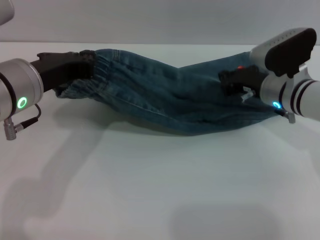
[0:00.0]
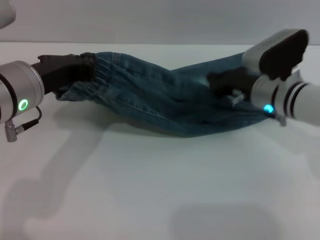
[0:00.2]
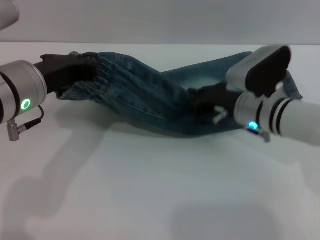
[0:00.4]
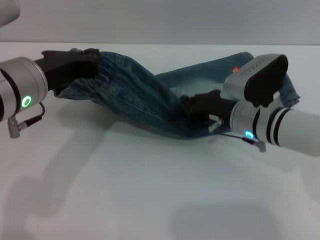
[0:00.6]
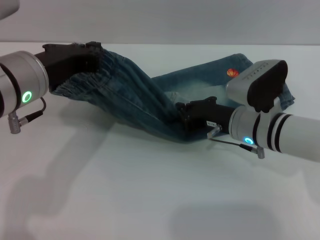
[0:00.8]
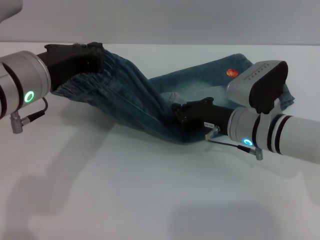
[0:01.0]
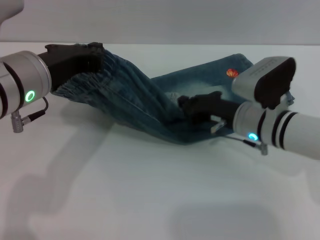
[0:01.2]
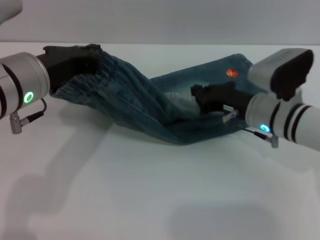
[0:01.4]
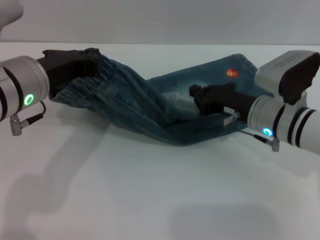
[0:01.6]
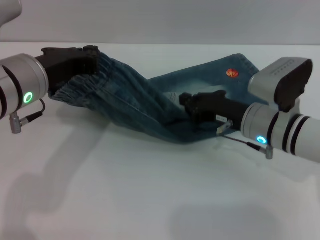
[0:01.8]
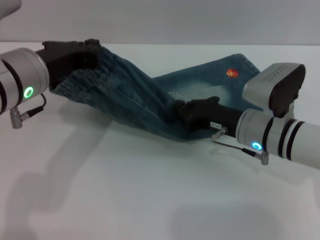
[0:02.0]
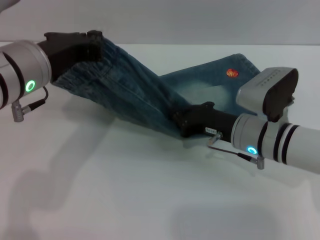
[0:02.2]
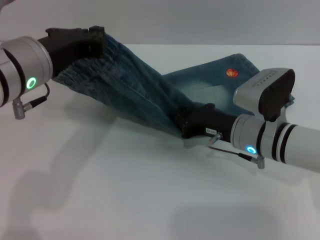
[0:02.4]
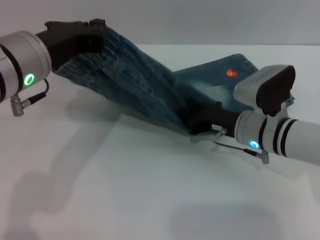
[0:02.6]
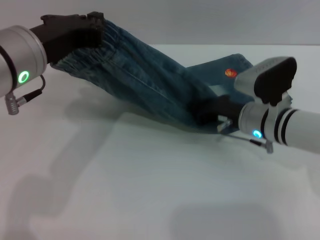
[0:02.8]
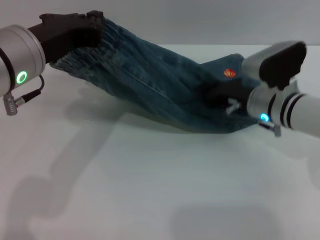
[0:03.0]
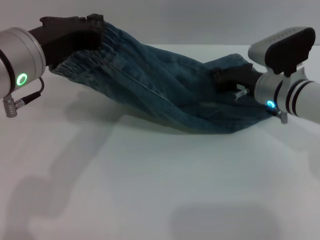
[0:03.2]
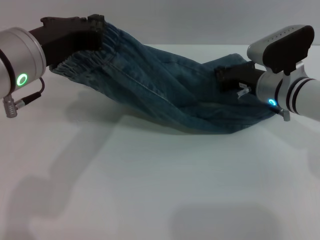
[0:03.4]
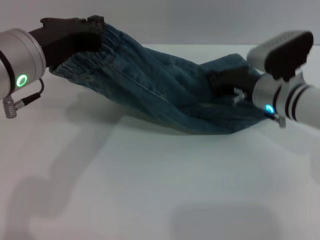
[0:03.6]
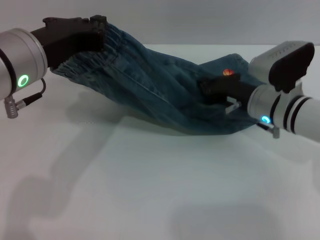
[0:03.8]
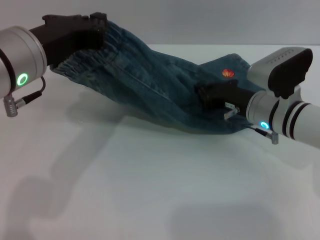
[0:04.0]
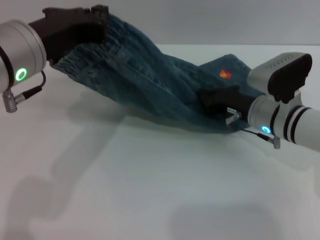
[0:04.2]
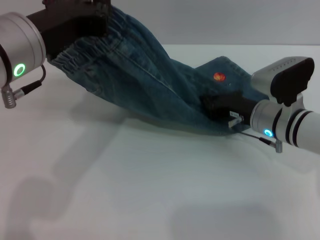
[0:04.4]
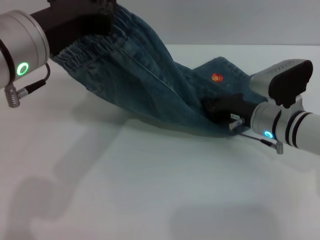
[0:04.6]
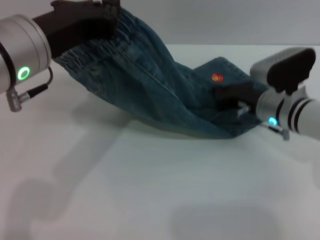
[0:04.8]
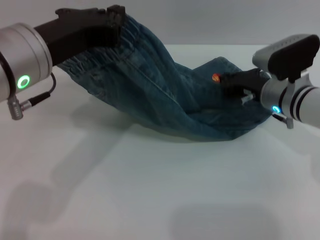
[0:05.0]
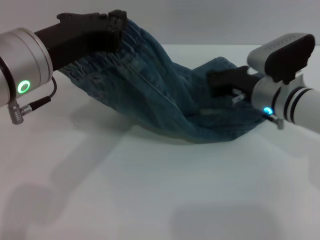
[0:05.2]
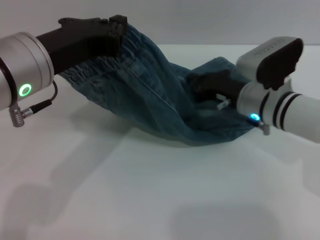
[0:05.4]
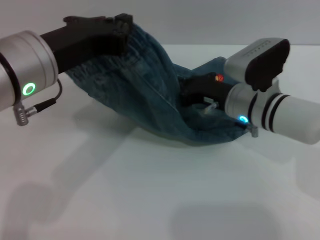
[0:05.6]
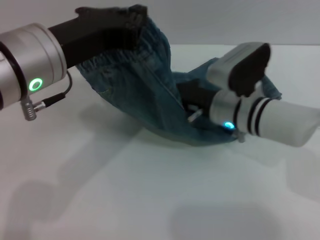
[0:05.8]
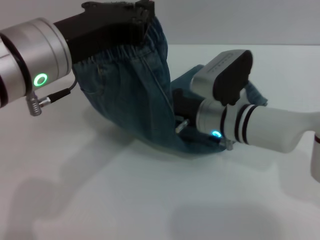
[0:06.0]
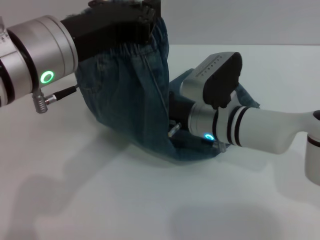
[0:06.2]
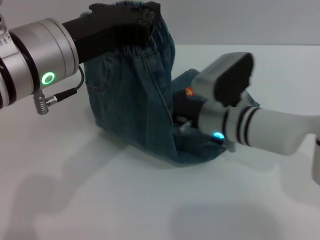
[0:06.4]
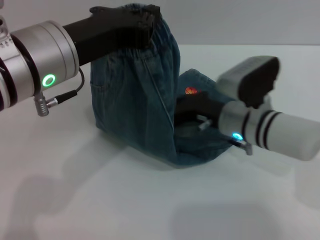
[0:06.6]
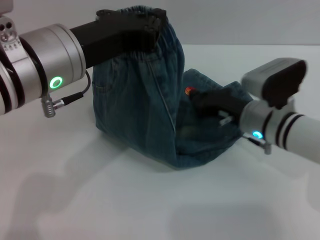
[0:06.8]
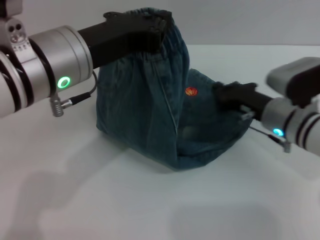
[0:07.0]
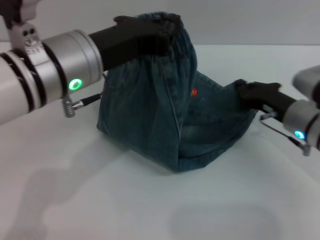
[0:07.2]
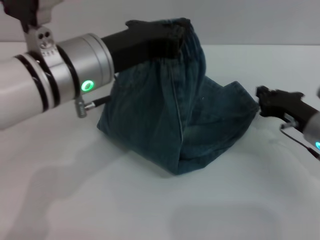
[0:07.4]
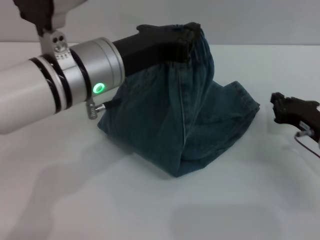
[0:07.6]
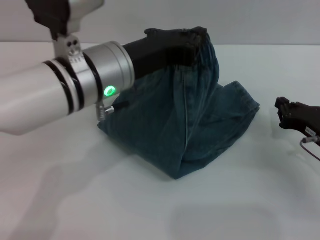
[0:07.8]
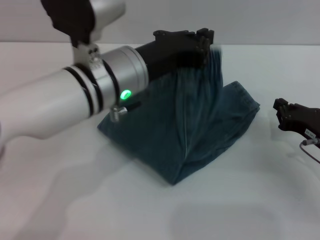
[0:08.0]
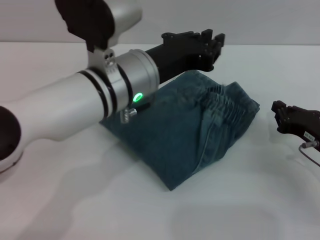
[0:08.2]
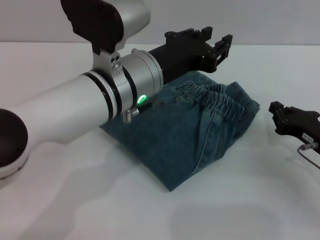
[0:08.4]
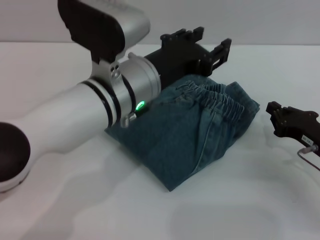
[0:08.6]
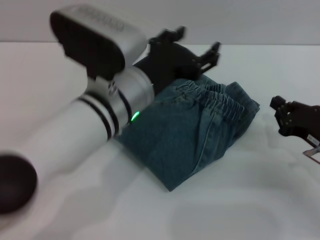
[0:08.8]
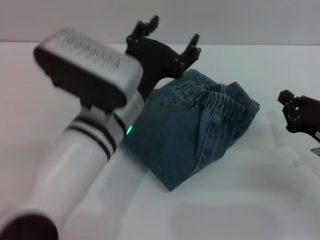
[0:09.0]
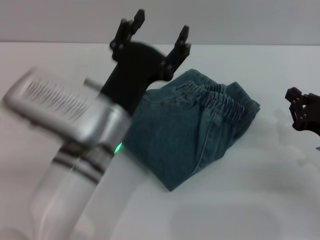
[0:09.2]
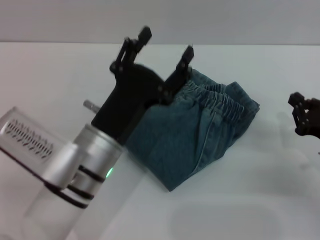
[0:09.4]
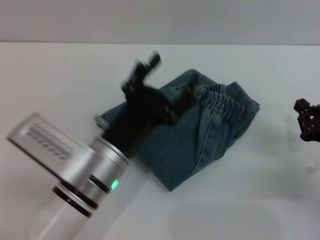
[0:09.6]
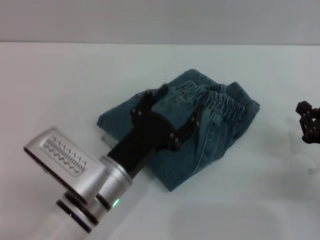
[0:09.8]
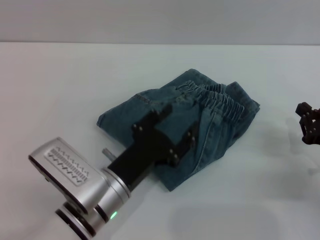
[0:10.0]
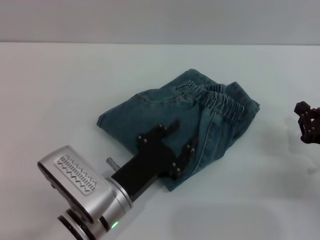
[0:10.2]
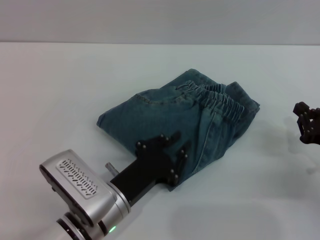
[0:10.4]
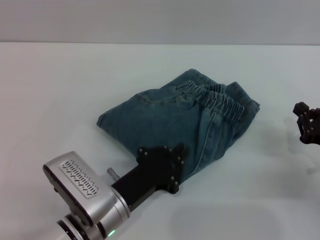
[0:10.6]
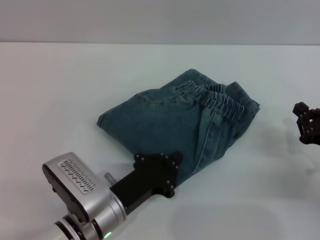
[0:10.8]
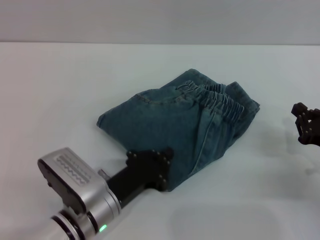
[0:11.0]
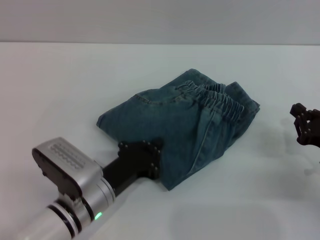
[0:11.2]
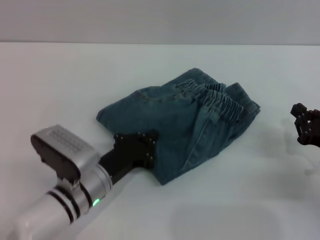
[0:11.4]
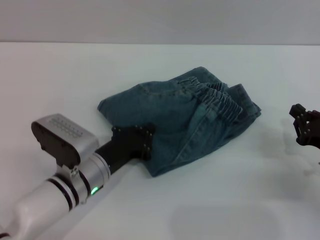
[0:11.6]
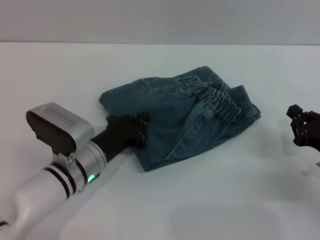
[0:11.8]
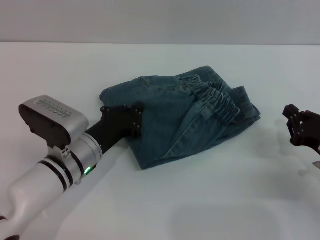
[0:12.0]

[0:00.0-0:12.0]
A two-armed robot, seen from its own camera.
Step, 0:00.0 to 0:08.6: Fold the pants from left to right with the left gripper.
0:00.0 to 0:01.6: The right gripper heads backward, covering approximately 5 cm.
0:03.0 to 0:04.4: The grippers make only small movements.
0:04.4 to 0:06.0: The right gripper travels to the left by approximately 10 cm.
0:06.0 to 0:07.6: The left gripper ends up approximately 5 cm from where it was. The right gripper goes roughly 20 cm to the right.
0:07.6 to 0:09.0: The left gripper moves downward, approximately 5 cm, and opens up.
0:09.0 to 0:10.4: The left gripper heads downward and backward, covering about 15 cm, and closes up.
0:10.4 to 0:12.0: The left gripper is displaced forward by about 10 cm, and closes its fingers.

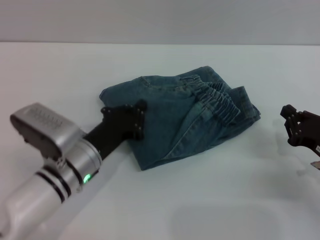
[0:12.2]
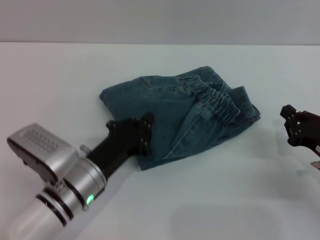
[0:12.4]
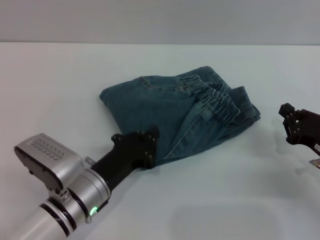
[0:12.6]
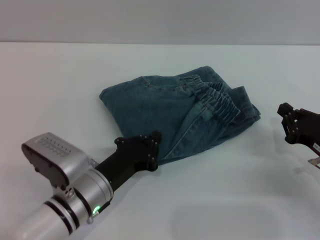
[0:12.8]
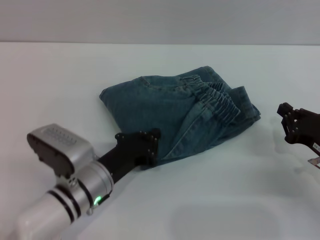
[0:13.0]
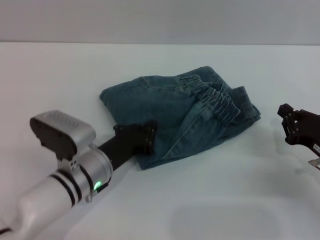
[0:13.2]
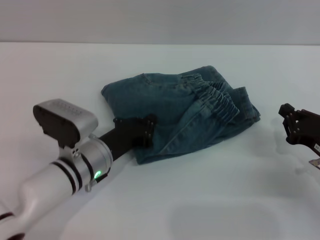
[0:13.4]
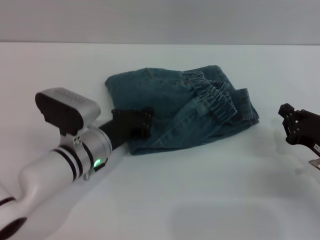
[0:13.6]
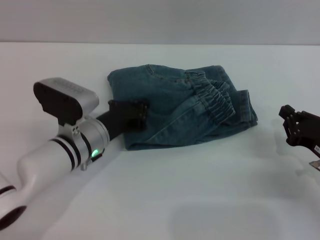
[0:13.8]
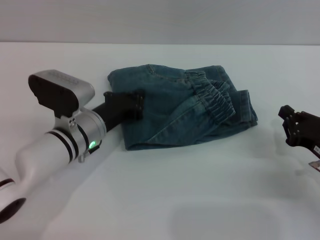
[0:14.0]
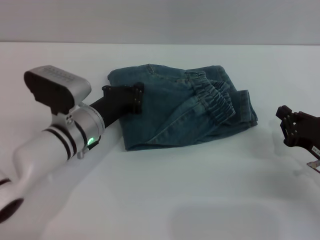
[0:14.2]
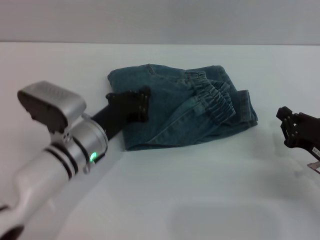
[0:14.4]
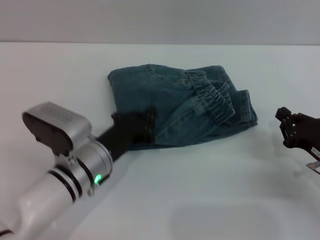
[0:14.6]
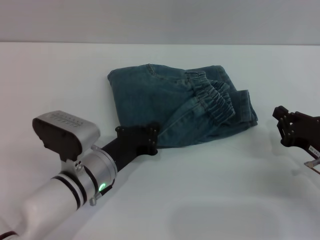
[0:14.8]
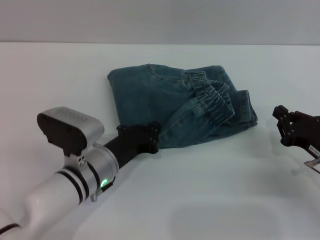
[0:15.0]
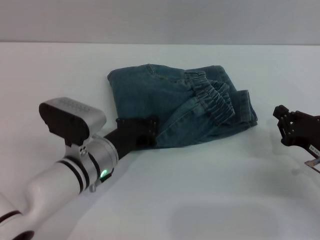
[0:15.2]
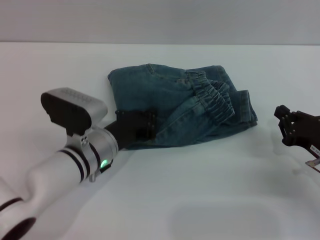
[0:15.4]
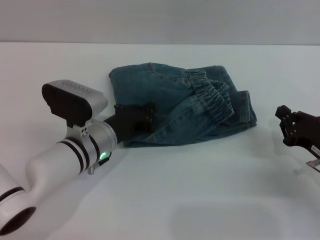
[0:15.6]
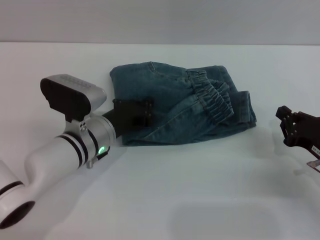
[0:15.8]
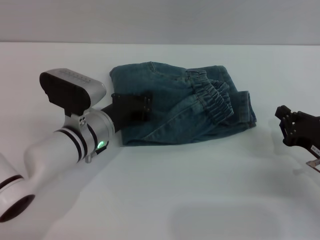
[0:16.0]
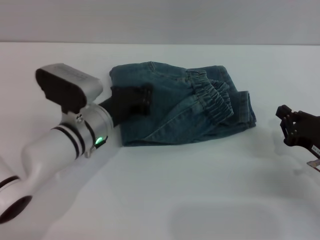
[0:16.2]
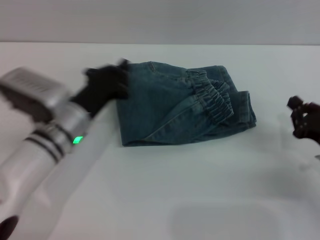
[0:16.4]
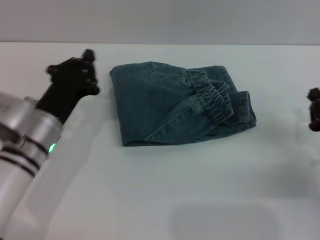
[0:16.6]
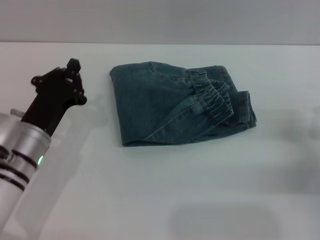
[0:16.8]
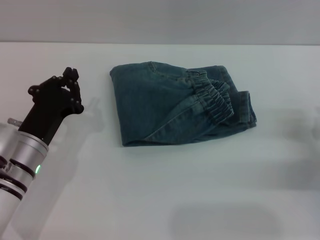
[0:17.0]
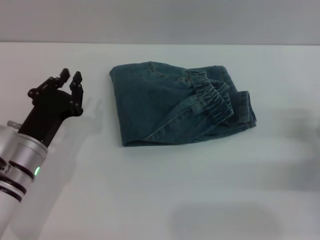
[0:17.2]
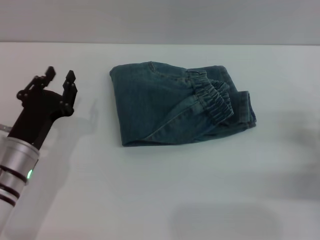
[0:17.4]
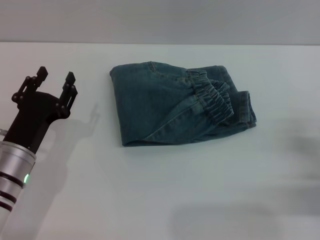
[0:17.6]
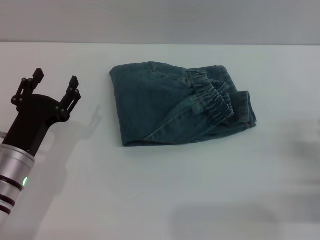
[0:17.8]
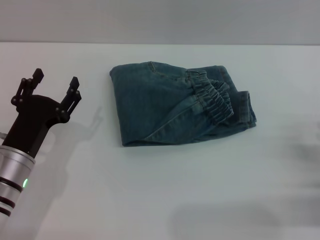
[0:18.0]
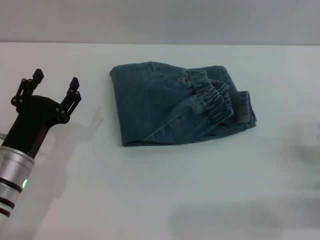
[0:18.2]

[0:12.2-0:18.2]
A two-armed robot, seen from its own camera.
Step, 0:12.2 to 0:16.0: Place the folded trousers onto the center area with the left grippers.
0:12.2 to 0:13.8: The left gripper moves roughly 5 cm.
0:13.8 to 0:15.2: The grippers make only small movements.
0:15.2 to 0:16.6: The left gripper goes some 5 cm to the left.
0:16.6 to 0:18.2: The right gripper ends up about 5 cm from where it was, and opens its fingers. The left gripper shifts by approximately 5 cm, and opens its fingers.

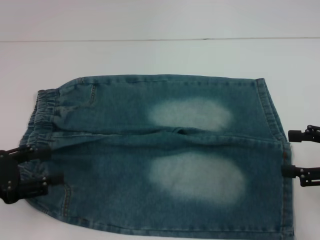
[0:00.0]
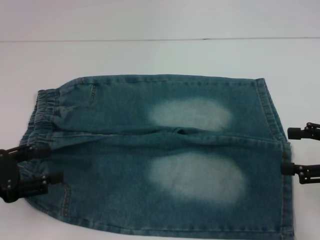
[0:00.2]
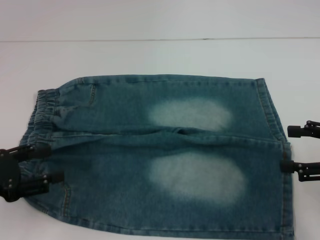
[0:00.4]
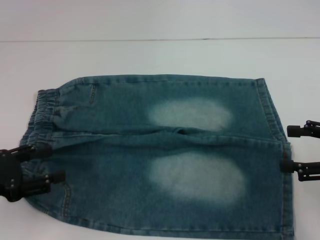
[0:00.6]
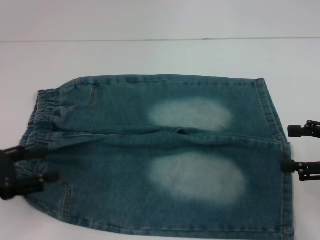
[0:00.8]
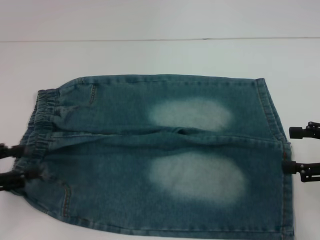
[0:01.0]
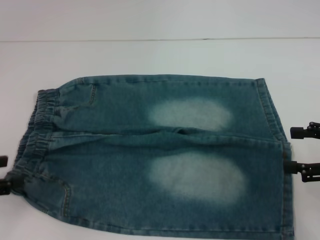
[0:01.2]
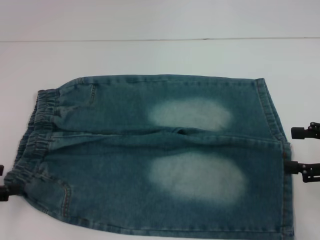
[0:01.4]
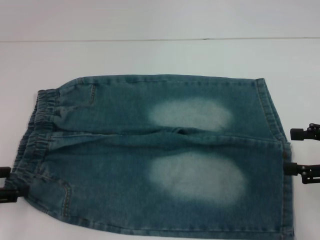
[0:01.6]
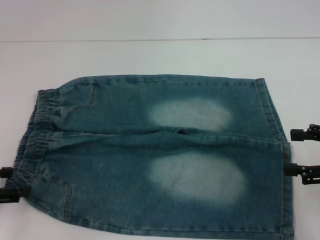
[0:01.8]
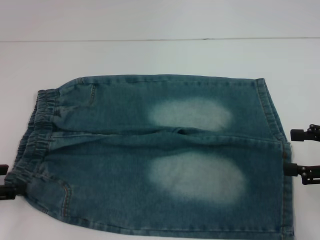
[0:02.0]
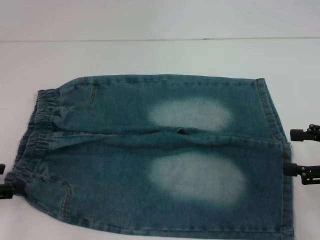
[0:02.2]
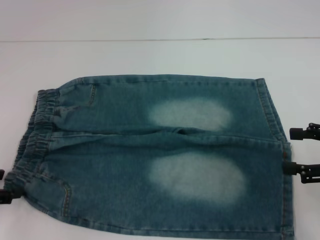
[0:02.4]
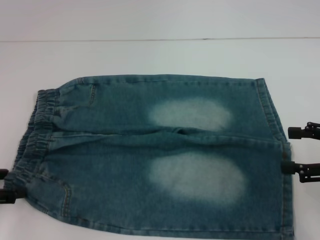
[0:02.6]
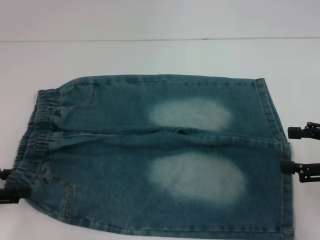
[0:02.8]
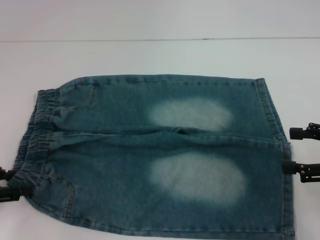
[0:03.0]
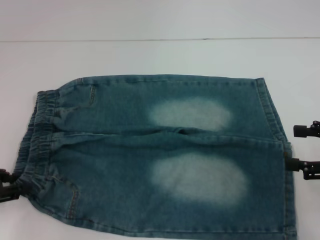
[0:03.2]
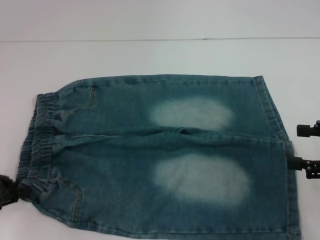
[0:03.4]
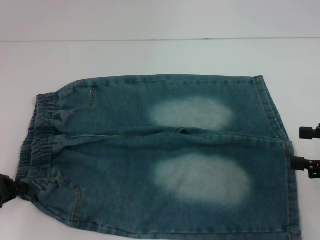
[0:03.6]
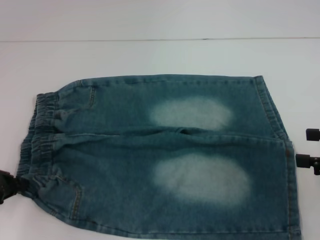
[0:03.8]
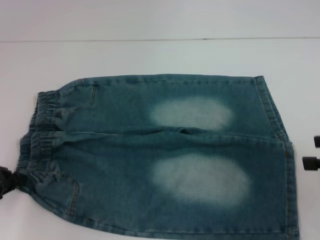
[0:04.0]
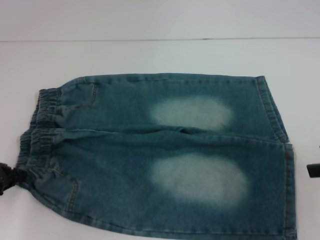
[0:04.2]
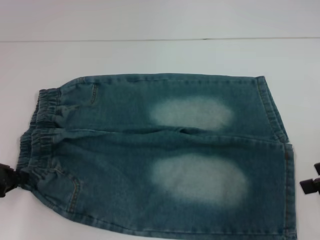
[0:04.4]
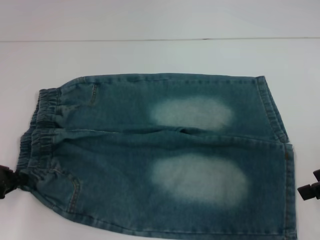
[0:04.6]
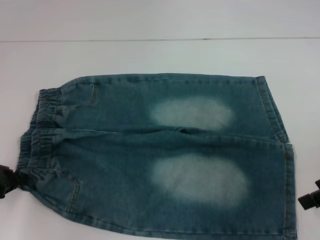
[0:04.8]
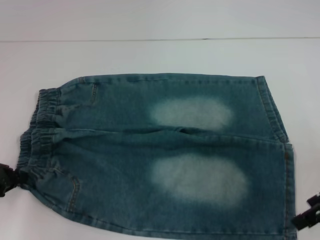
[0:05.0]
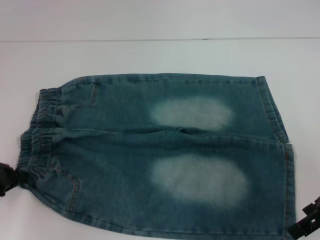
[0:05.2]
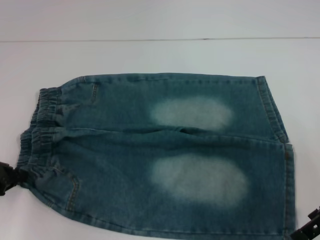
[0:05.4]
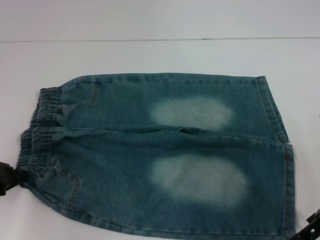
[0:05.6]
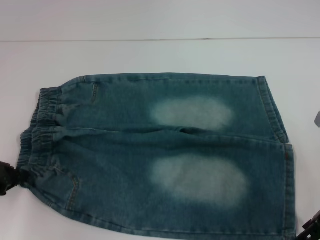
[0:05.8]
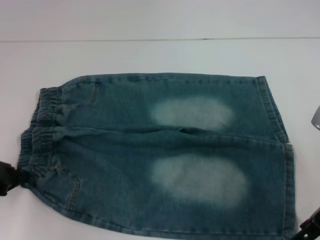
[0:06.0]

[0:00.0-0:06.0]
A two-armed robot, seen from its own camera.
Step, 0:00.0 to 0:03.6: Hold the lower left waistband with your left hand.
0:01.6 to 0:03.0: There are only small adjustments of the grippers.
0:03.0 to 0:04.4: The left gripper closes.
0:04.4 to 0:06.0: The right gripper shifts approximately 5 cm to the left.
